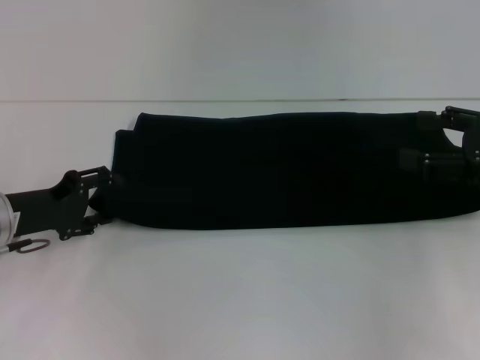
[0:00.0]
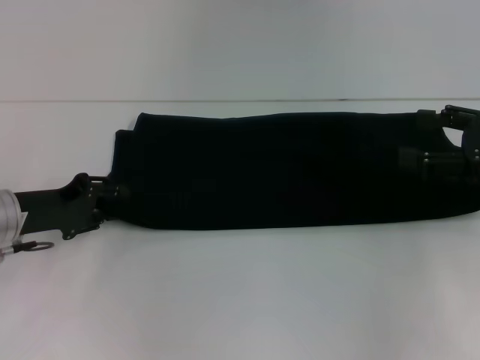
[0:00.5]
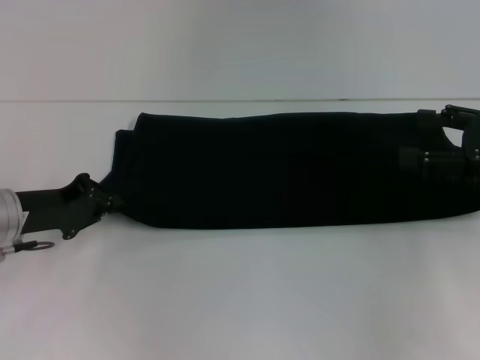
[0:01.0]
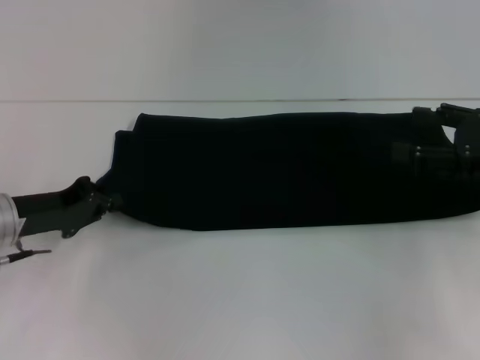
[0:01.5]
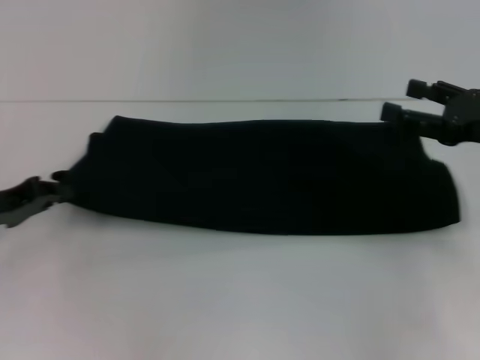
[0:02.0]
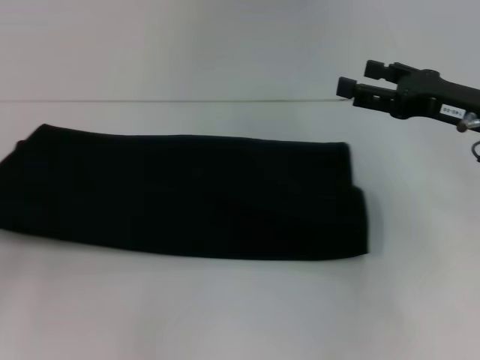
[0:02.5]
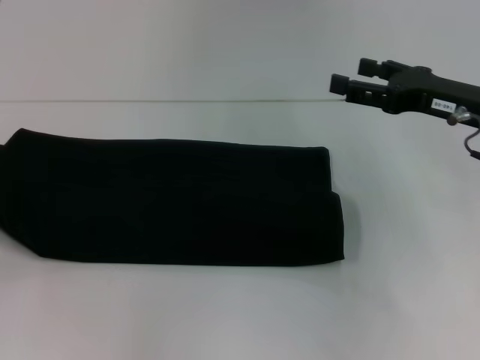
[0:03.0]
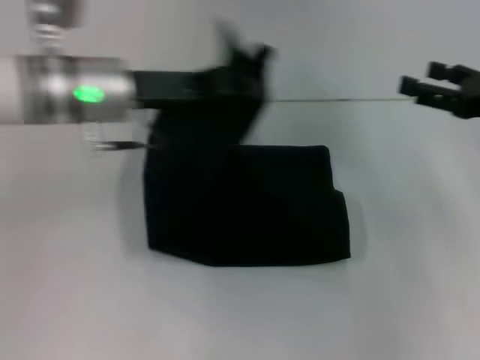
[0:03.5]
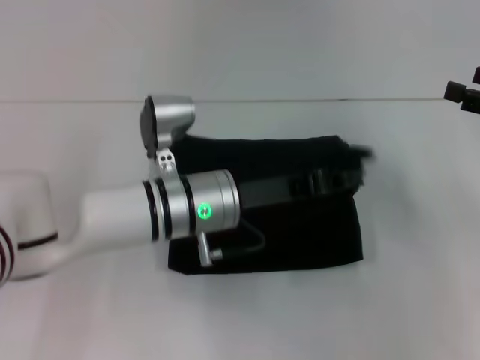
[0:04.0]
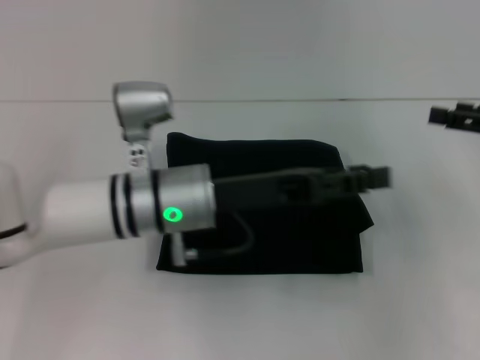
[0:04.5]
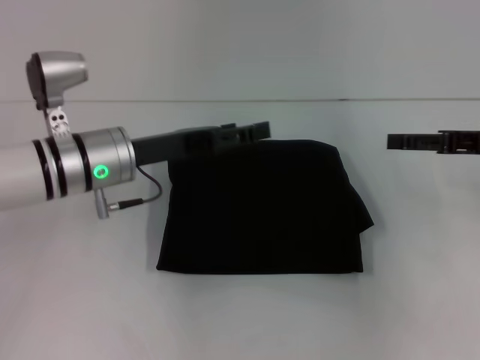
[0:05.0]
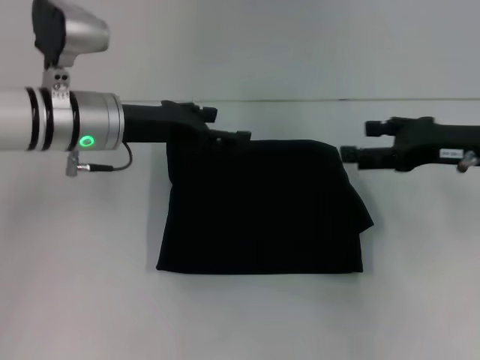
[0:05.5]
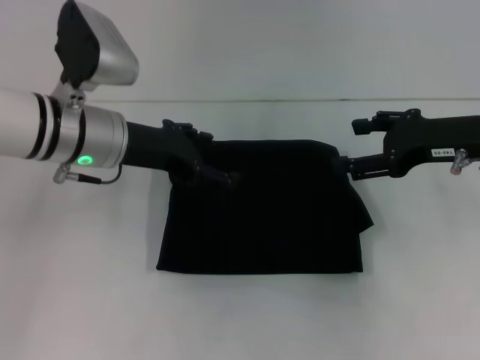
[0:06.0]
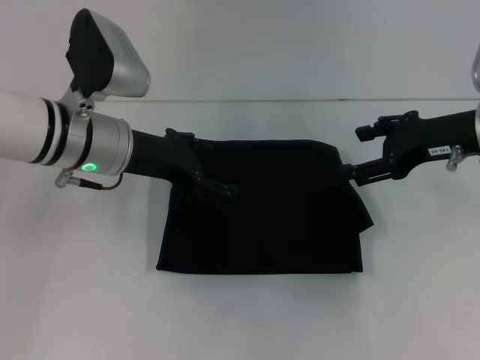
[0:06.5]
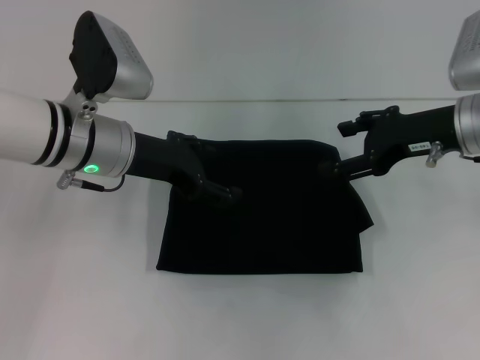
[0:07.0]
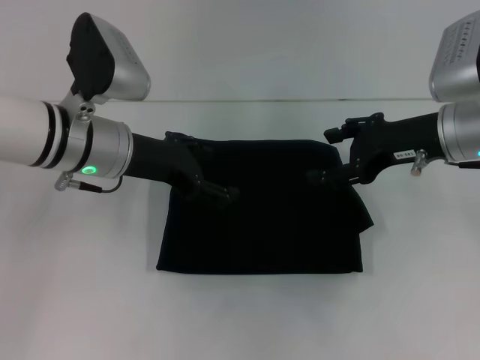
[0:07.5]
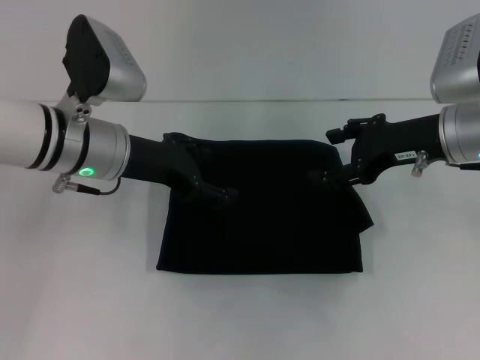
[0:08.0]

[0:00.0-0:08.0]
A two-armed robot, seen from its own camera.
Step, 0:00.0 to 0:04.0: Fold the clothes with your left hand.
0:00.0 to 0:02.0: The left gripper closes its fingers.
0:02.0 to 0:04.0: The right gripper is displaced to the right by some 5 cm; the left gripper moves to the right, approximately 25 cm.
0:04.0 to 0:06.0: The right gripper is displaced to the left by approximately 10 cm, while the left gripper moves to the left and upward, about 10 cm, and opens its fingers.
0:06.0 to 0:08.0: The grippers move only a little.
